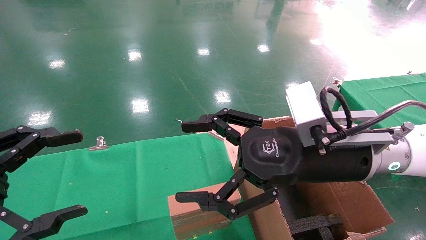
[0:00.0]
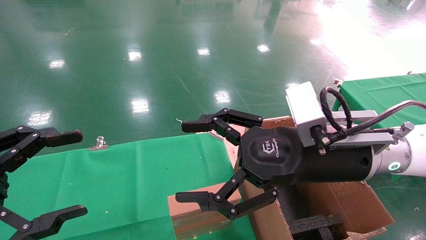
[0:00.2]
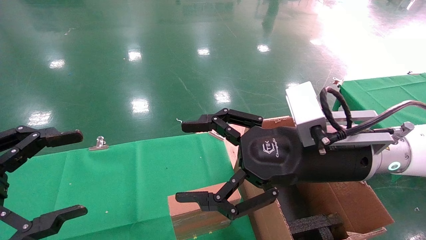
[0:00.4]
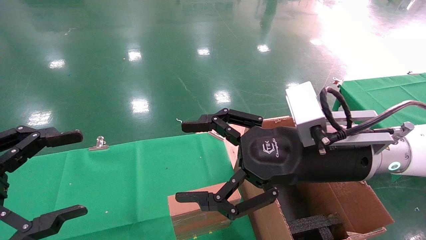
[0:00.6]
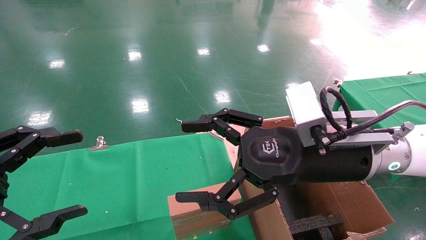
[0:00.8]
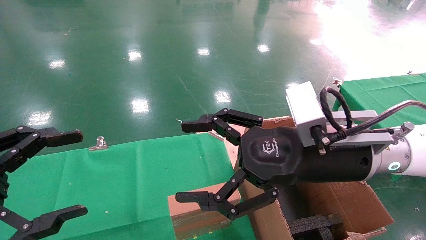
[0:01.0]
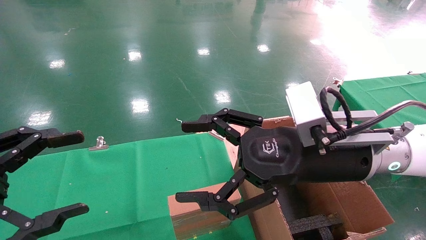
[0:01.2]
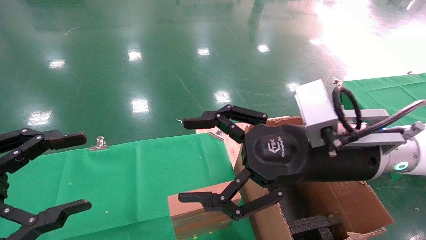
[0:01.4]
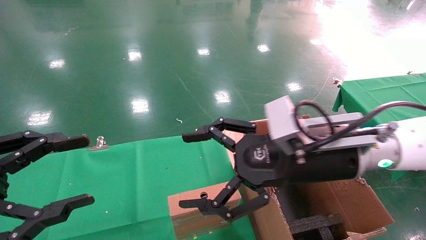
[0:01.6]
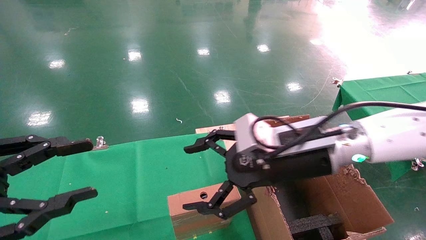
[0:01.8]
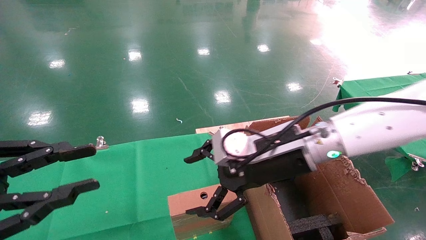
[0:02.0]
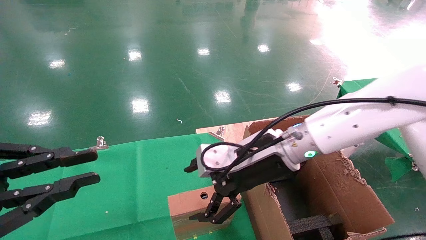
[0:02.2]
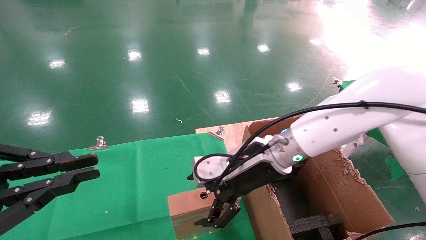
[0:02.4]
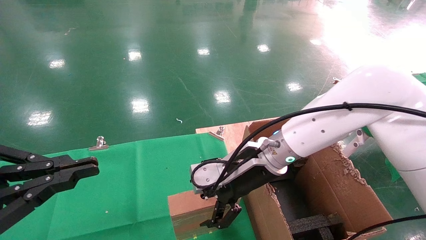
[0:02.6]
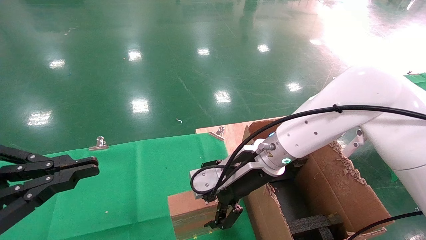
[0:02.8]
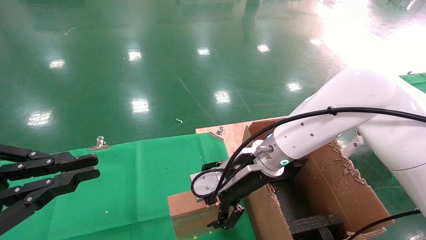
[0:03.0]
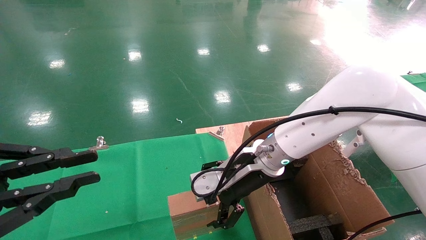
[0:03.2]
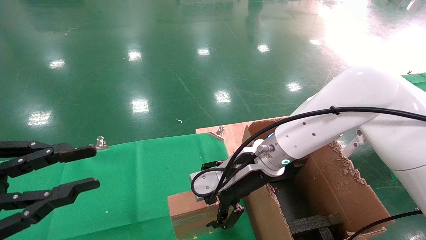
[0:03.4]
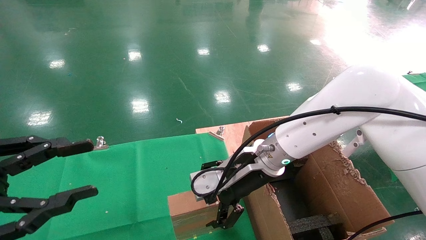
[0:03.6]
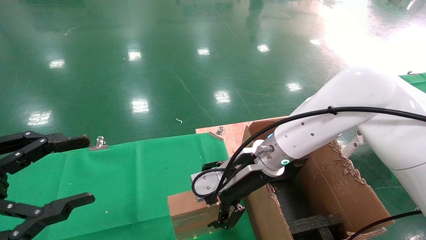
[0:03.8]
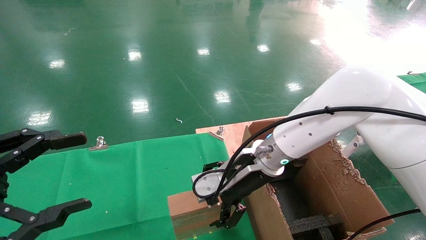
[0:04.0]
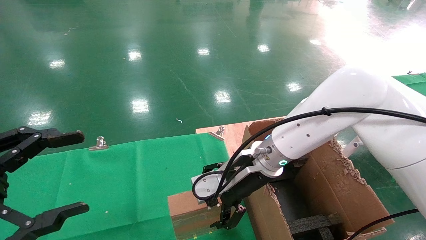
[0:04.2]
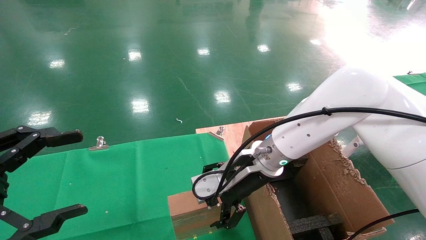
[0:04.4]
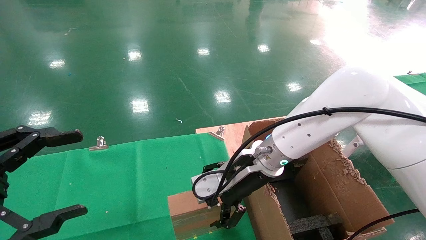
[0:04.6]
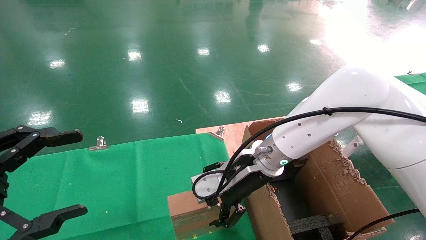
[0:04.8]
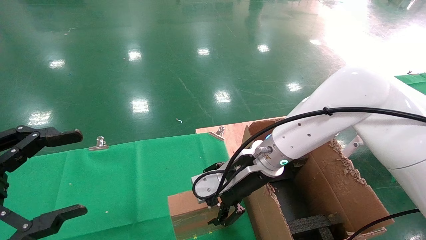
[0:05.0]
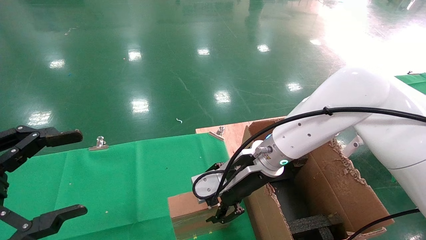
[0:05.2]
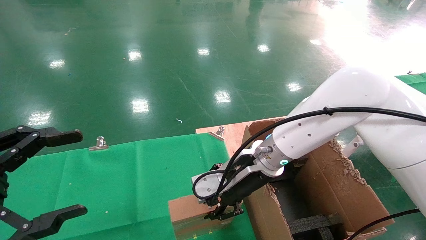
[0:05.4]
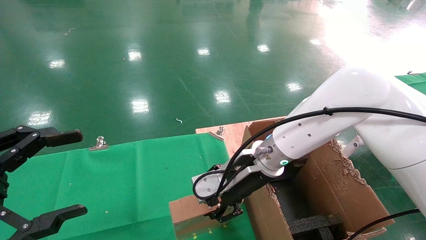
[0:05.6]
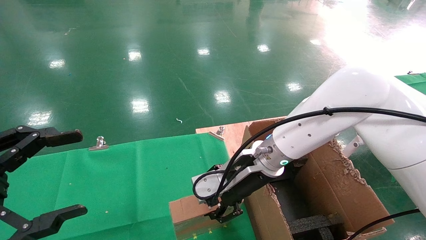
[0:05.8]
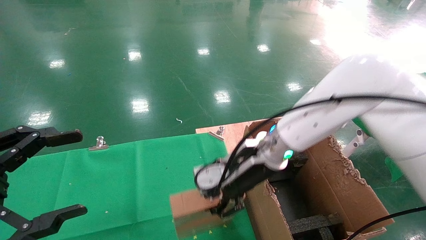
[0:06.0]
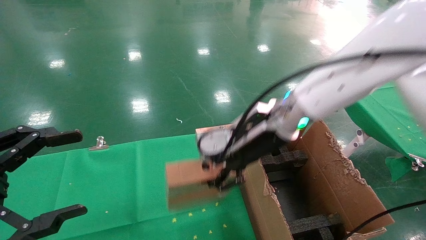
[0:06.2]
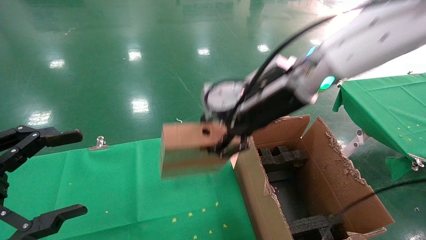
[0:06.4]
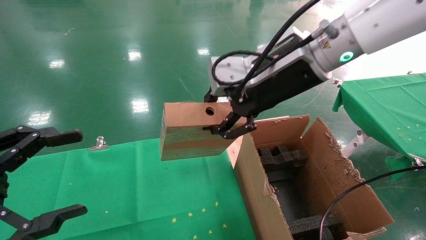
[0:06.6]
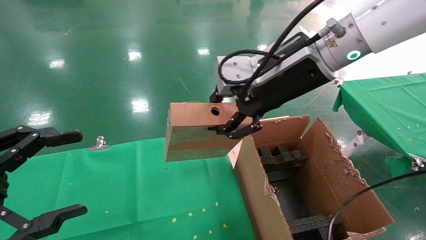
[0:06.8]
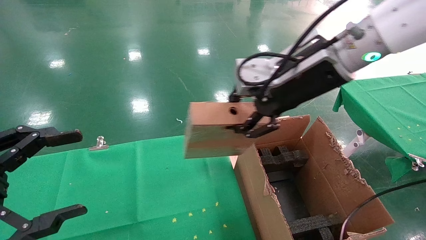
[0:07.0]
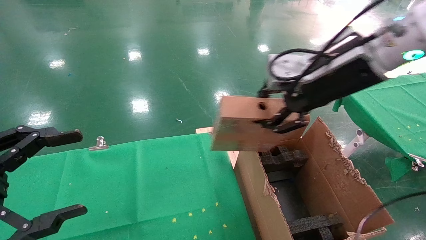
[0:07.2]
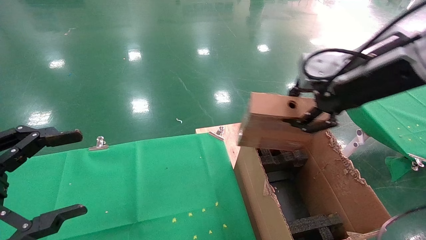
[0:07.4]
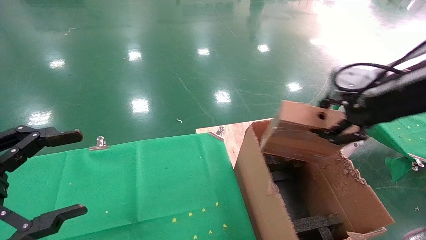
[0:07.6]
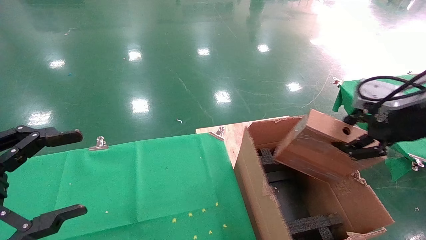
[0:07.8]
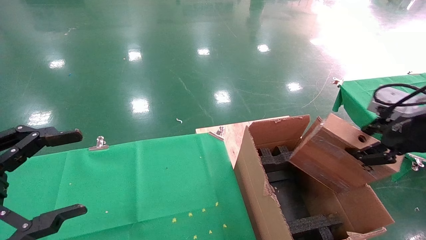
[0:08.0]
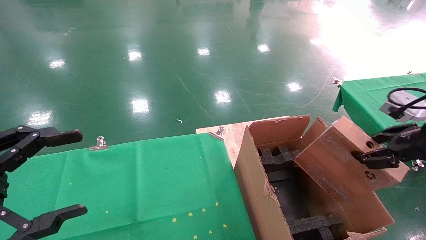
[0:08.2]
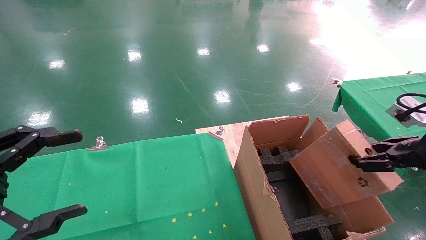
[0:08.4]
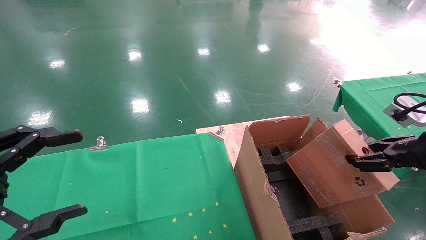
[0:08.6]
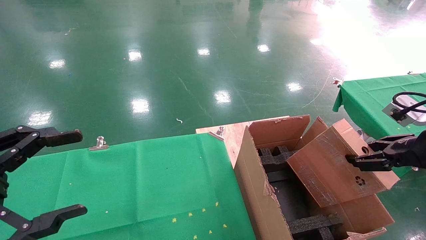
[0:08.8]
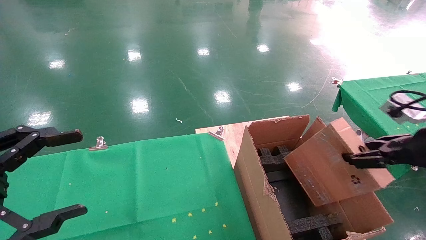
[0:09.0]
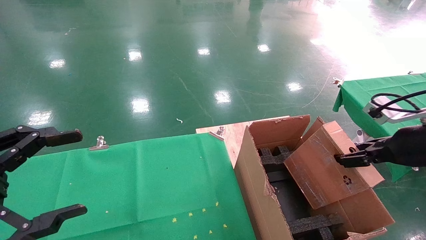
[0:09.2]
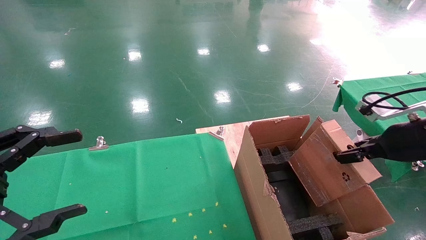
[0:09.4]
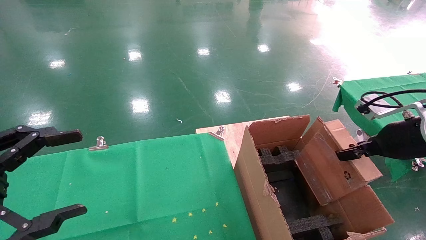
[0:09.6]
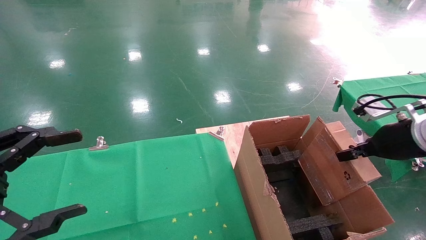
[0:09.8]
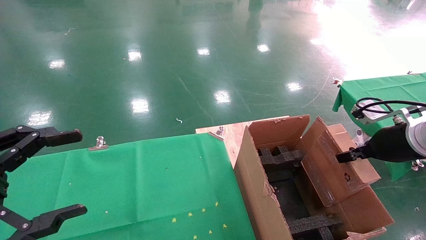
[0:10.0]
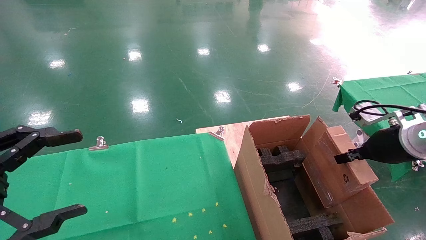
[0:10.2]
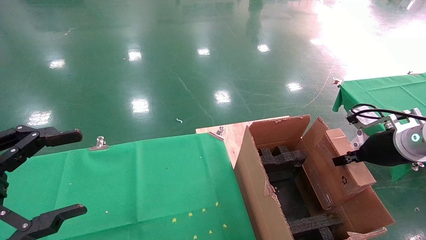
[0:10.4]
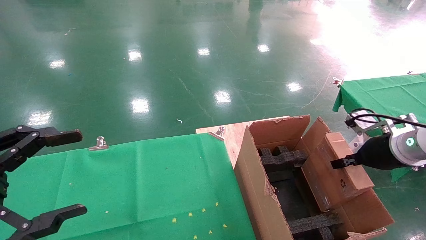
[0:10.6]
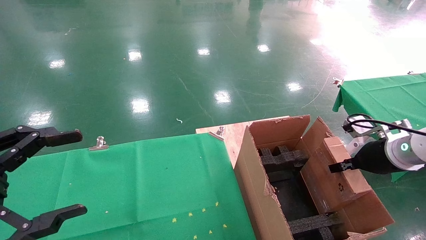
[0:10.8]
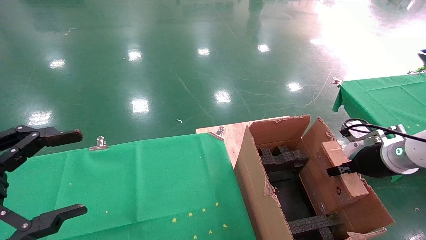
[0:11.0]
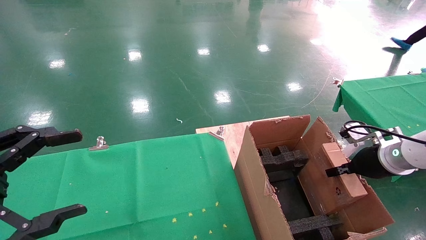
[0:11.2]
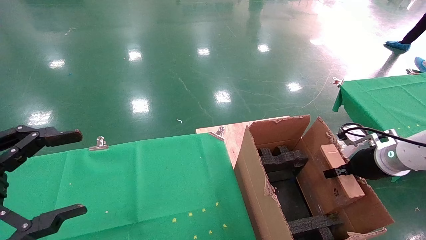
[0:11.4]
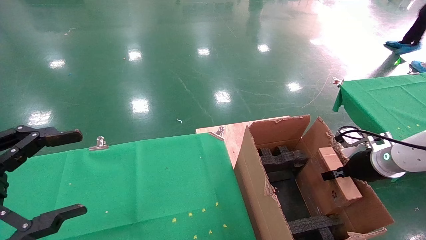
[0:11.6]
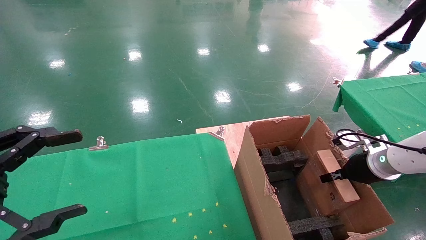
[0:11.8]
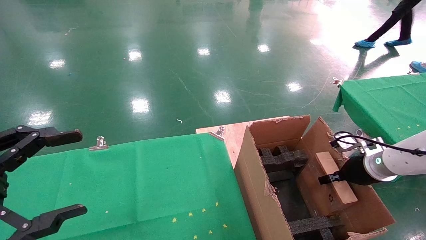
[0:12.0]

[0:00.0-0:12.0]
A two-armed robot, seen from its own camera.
Task of the whole recording: using a robotic arm to pick up a cardboard box and palace it the carton.
Step, 0:01.6 to 0:05.4: Pick up the mouse and the power cord paper box.
0:00.0 to 0:01.6: The grippers stay close to where they were, moving slightly.
0:01.6 to 0:03.0: The left gripper closes. Meanwhile the right gripper heads forward and to the left, covering some 10 cm.
0:03.0 to 0:04.4: The left gripper opens its fingers.
0:04.4 to 0:06.0: The right gripper closes up.
0:06.0 to 0:07.6: The right gripper is displaced to the right, upward and backward by approximately 25 cm.
0:07.6 to 0:09.0: The right gripper travels downward and to the right by about 15 cm.
0:09.0 to 0:10.4: The right gripper travels forward by approximately 10 cm.
0:10.4 to 0:12.0: The right gripper travels downward and forward by roughly 10 cm.

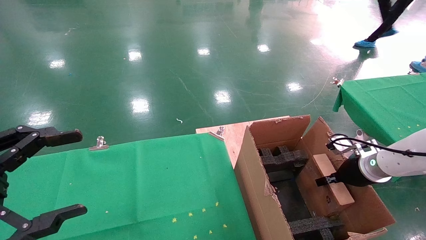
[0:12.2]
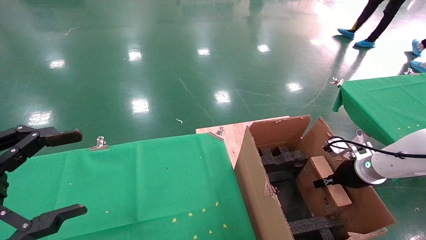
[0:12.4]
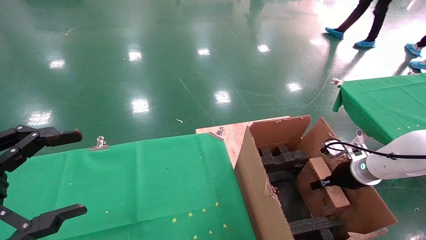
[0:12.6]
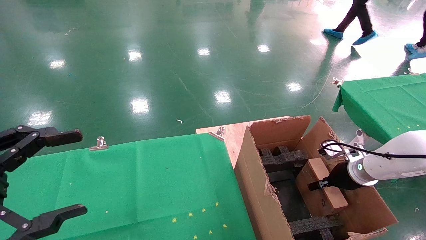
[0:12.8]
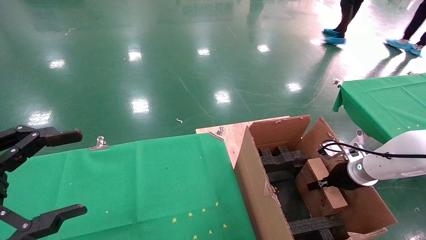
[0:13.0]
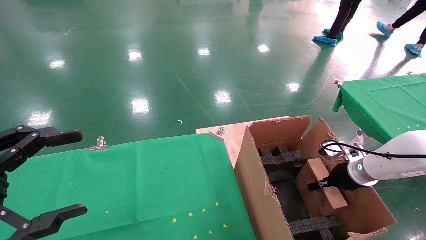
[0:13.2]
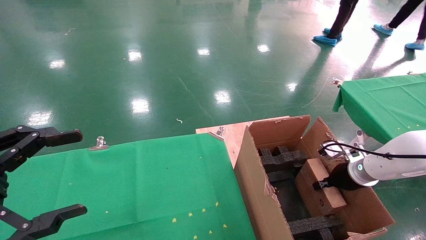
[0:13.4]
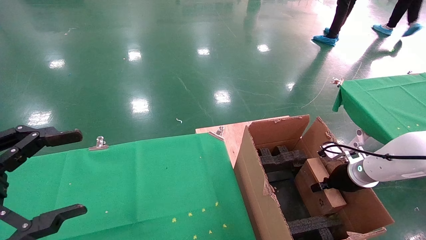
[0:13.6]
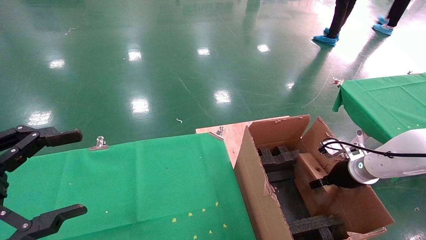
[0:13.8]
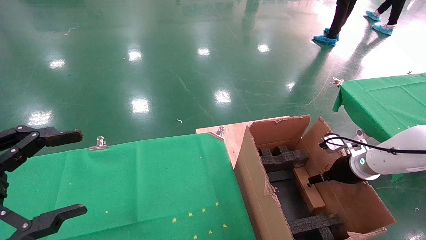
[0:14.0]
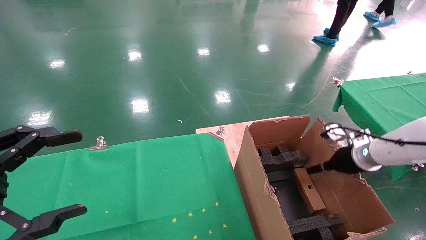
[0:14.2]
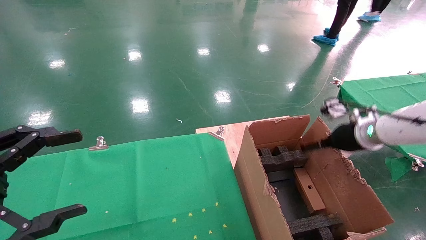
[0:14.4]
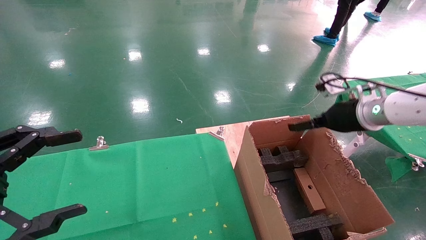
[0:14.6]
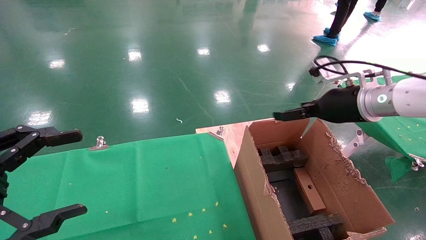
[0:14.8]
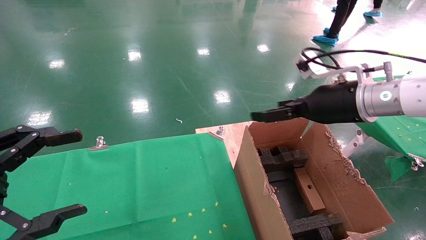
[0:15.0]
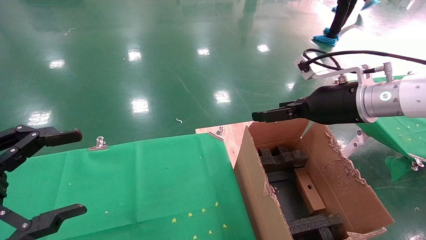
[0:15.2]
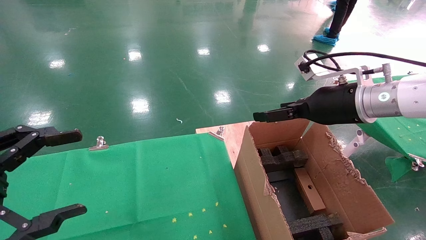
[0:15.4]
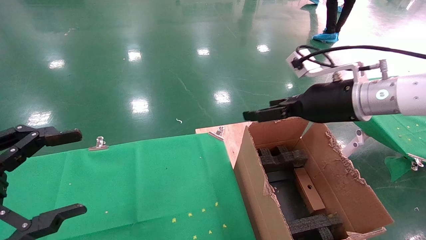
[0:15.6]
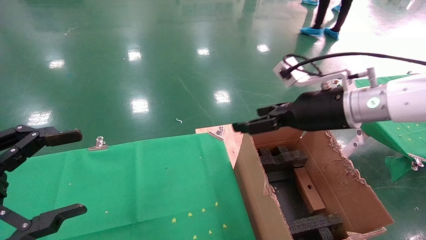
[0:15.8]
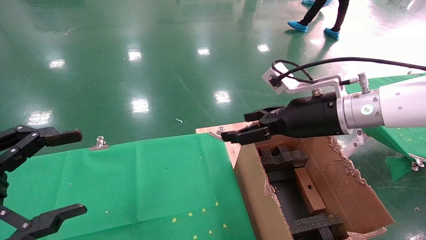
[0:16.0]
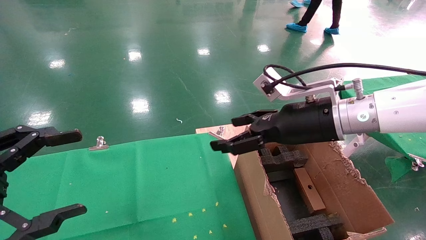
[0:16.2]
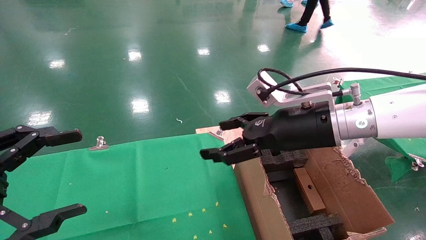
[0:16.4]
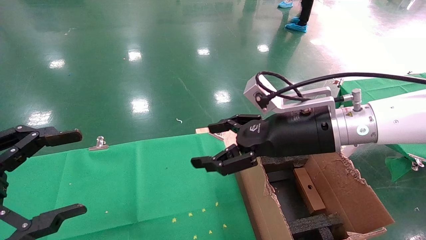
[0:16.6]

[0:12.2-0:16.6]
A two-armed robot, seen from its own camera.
Task of the whole recording: using a robotic arm to pick up a cardboard box and palace it the carton.
Step, 0:12.2 to 0:14.2: Place the mouse and the power cord paper box into the container.
0:12.2 to 0:13.6: The grippers stay close to where they were, moving slightly.
0:13.6 to 0:15.2: The right gripper shifts roughly 25 cm upward and to the left, and opens its fingers.
0:15.2 to 0:16.6: The right gripper moves to the left, approximately 10 cm.
